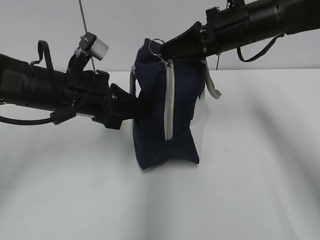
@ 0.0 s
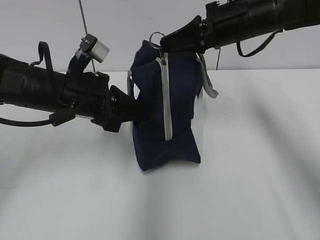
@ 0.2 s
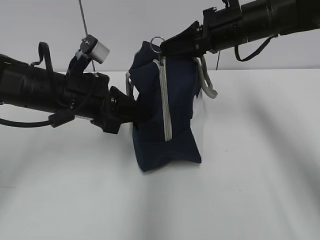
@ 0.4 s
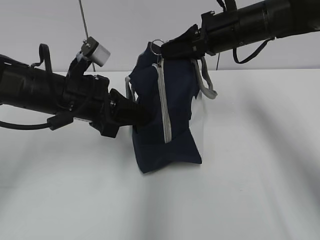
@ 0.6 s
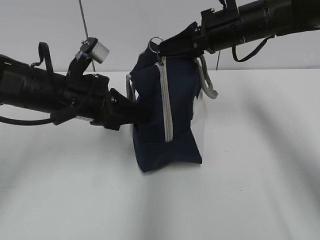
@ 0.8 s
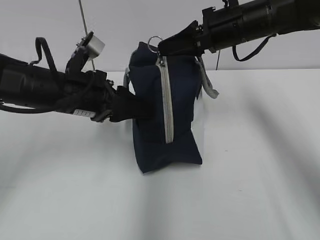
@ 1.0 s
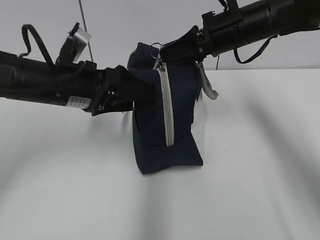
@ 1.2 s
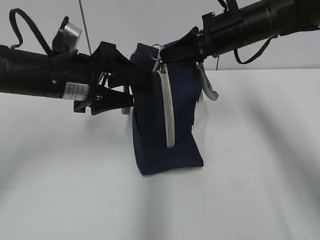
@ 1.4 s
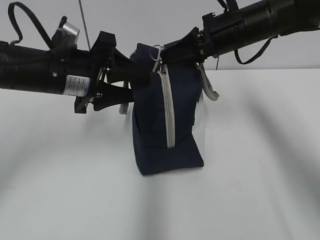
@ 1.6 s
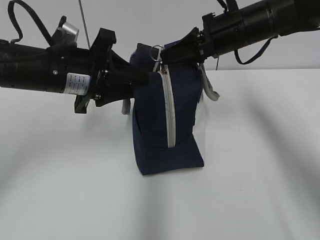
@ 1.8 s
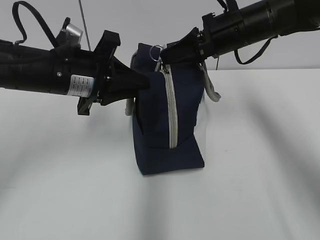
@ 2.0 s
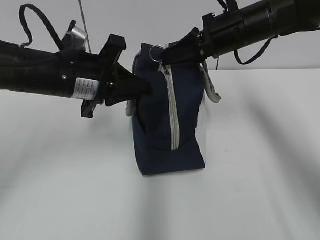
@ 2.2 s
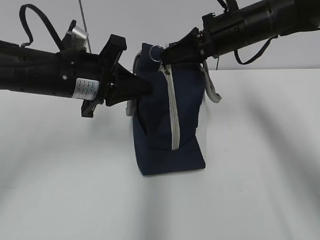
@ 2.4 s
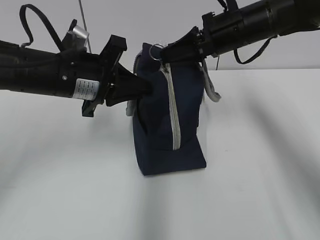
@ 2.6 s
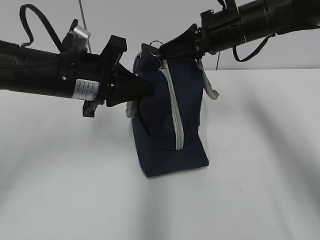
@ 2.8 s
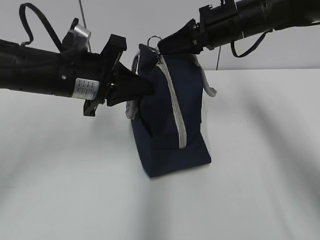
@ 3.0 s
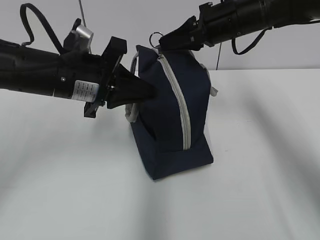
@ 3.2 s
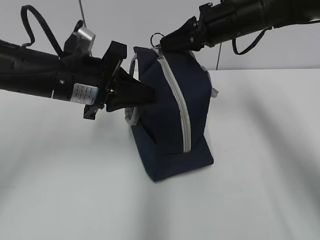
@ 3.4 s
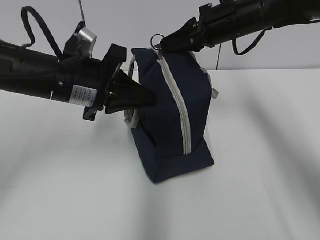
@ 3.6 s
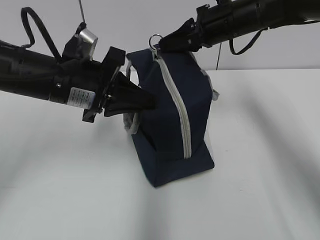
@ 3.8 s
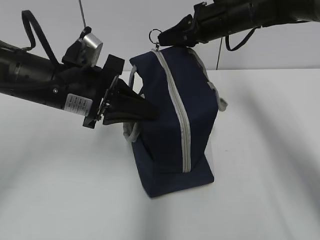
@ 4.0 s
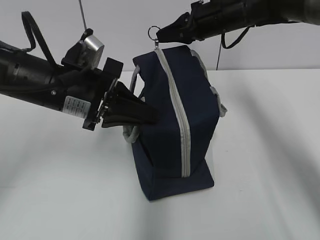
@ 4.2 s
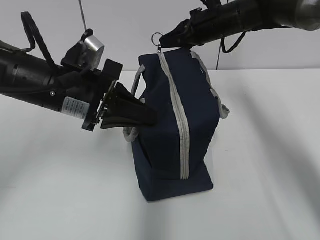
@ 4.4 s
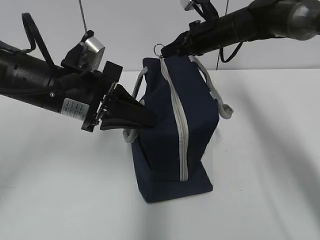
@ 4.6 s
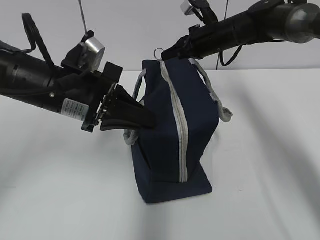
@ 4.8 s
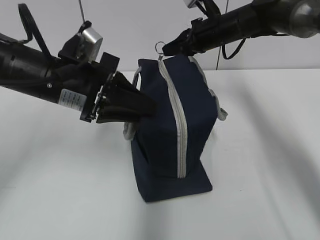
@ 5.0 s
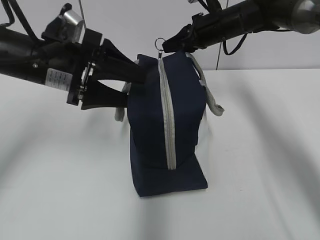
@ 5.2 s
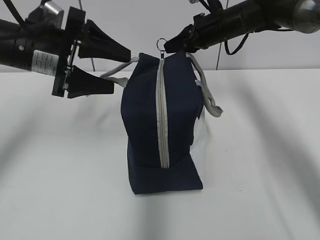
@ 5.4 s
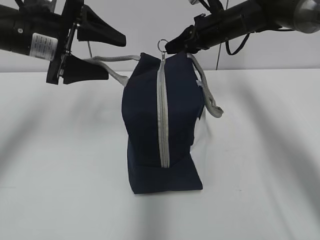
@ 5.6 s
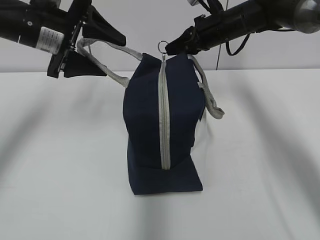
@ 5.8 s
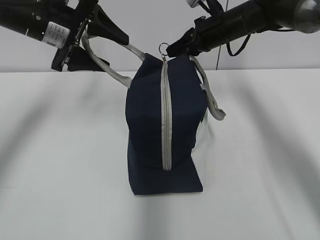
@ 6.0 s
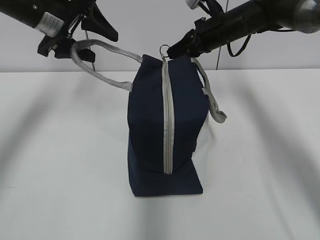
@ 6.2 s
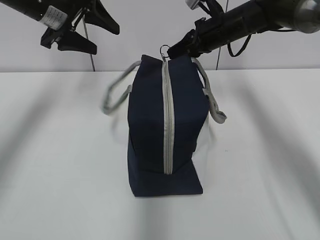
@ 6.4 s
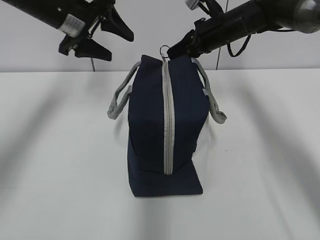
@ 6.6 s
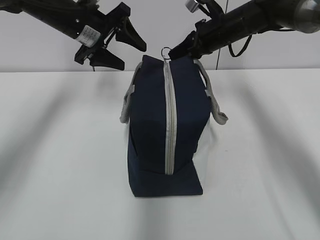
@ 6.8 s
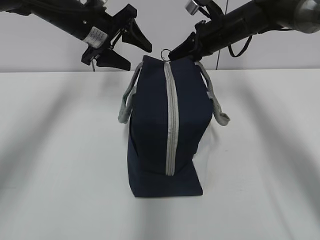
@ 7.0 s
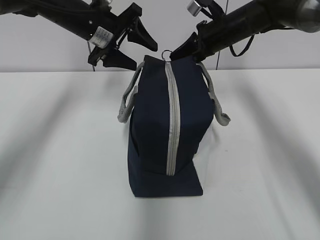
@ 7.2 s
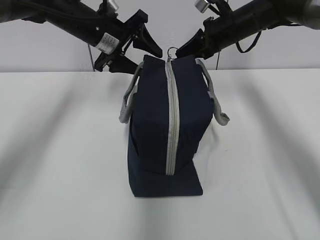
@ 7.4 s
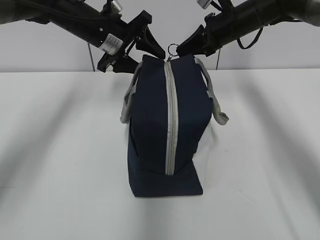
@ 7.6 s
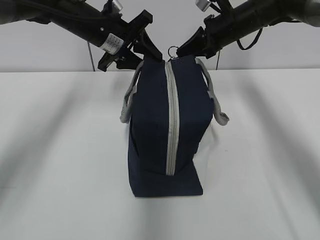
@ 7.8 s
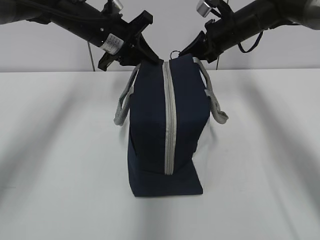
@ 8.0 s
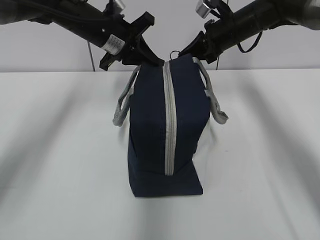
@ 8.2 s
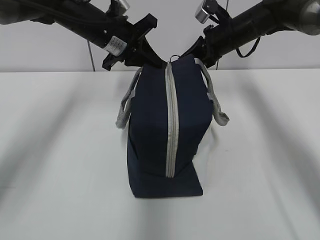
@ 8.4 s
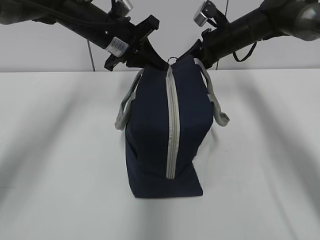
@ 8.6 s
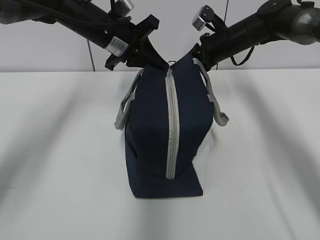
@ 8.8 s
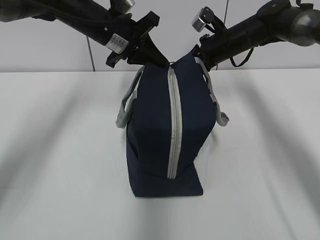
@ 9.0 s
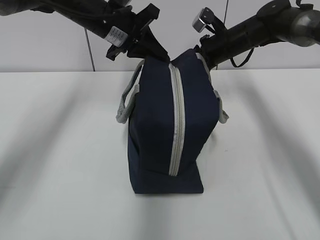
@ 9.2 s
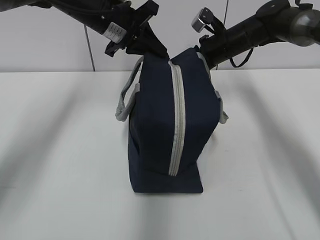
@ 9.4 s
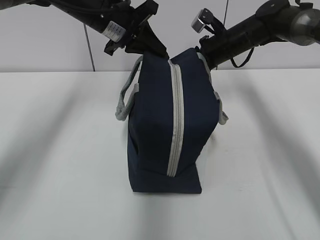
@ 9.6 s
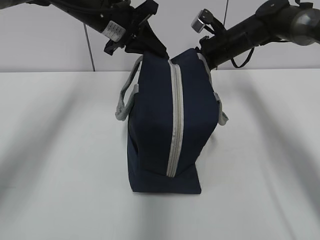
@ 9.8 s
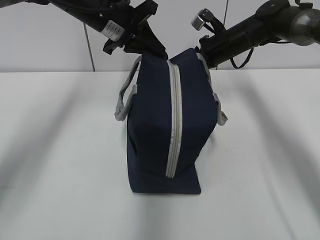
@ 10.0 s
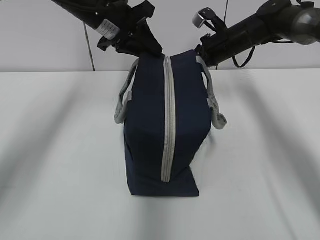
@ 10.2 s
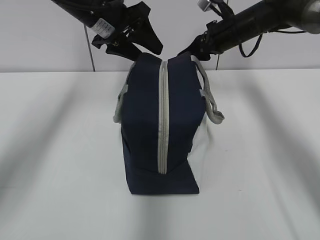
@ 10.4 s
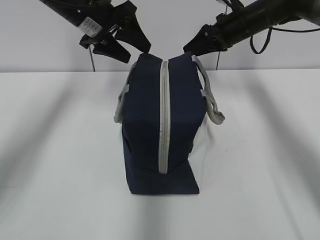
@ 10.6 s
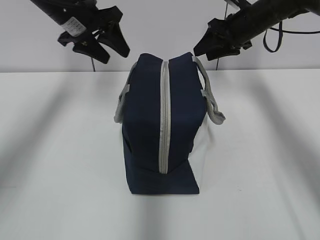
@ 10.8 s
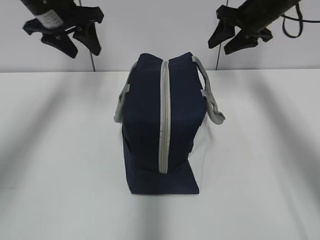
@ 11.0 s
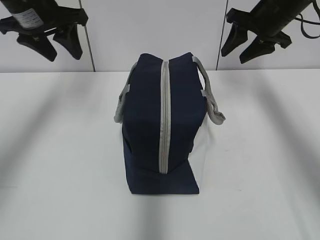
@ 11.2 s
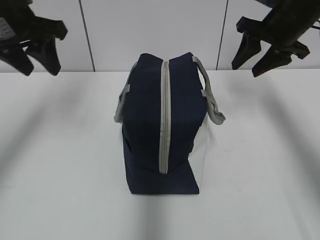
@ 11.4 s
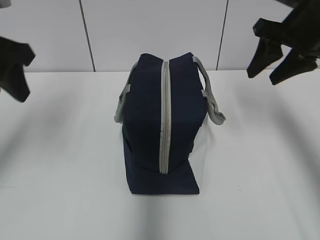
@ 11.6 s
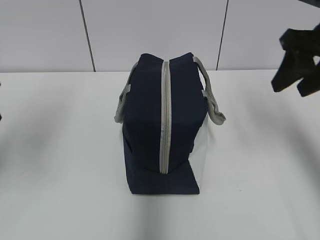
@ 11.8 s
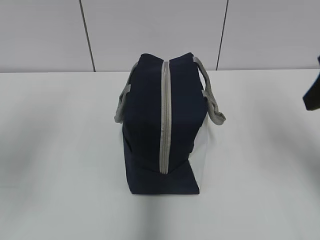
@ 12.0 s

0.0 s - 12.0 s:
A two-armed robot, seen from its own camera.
0.0 s - 1.6 s: The left gripper opens its fingers.
1.6 s - 3.0 s: The left gripper closes its fingers.
3.0 s - 4.4 s: The right gripper heads forward, covering roughly 5 cm.
4.4 s - 6.0 s: The left gripper travels forward, to the left and upward by some 15 cm, and opens its fingers.
6.0 s - 7.6 s: The left gripper travels to the right and forward by some 10 cm.
7.6 s - 9.0 s: The left gripper closes.
9.0 s - 10.4 s: The left gripper opens its fingers. The right gripper opens.
10.4 s - 12.0 s: The left gripper shifts approximately 30 cm backward and to the left; the right gripper shifts some 25 cm backward.

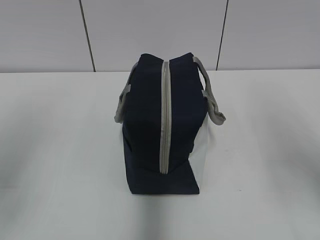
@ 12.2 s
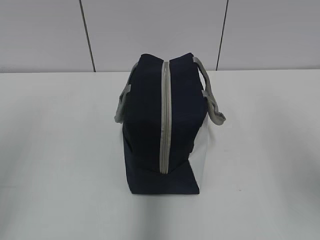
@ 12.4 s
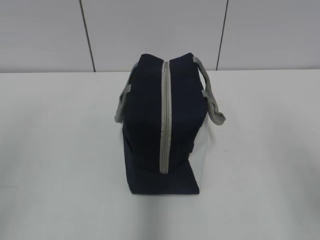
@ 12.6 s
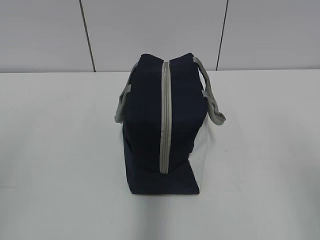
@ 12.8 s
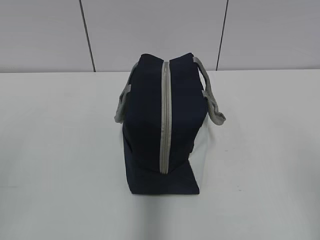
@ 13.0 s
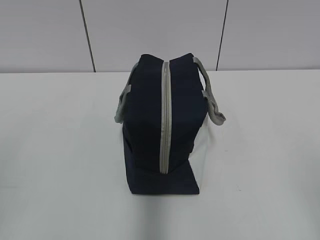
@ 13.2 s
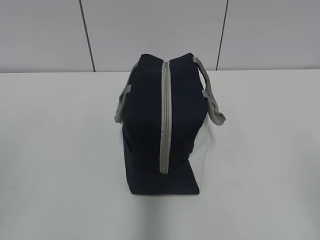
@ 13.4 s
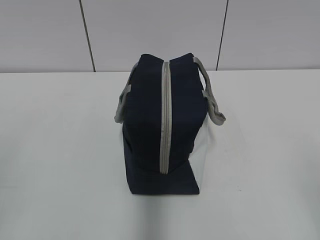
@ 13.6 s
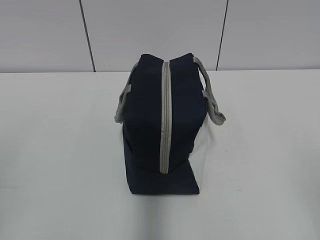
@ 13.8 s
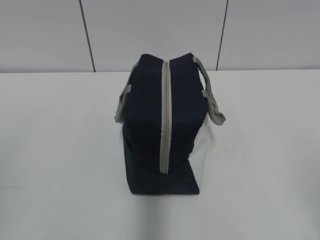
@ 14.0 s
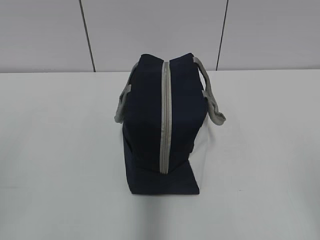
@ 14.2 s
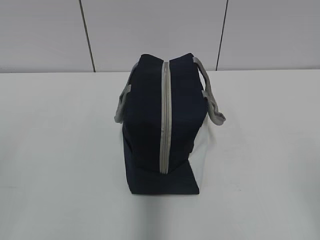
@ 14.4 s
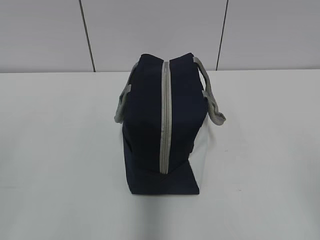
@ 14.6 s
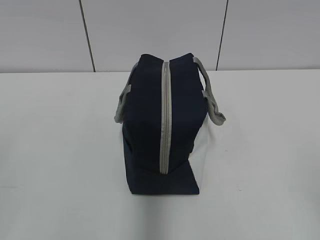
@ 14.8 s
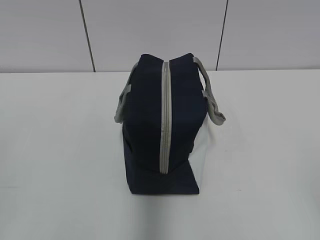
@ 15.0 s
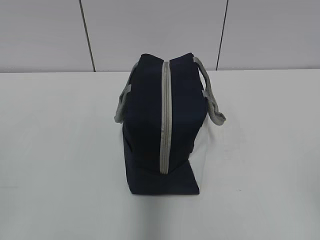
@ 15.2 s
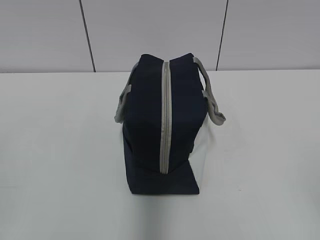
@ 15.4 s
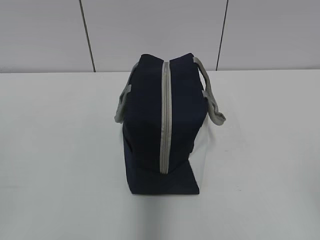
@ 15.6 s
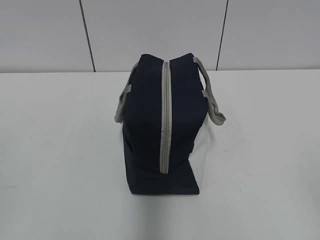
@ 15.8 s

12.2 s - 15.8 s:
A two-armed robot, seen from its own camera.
12.2 s - 14.0 s: The right gripper is displaced backward and downward by about 15 cm.
